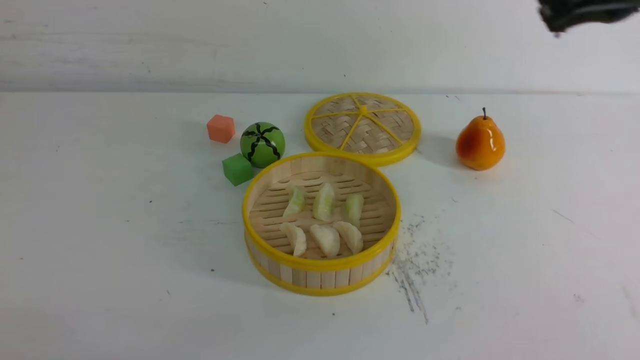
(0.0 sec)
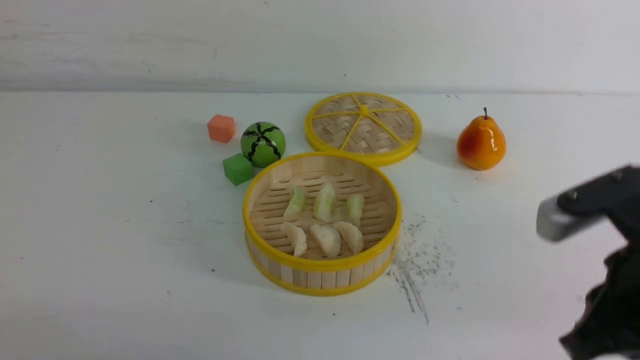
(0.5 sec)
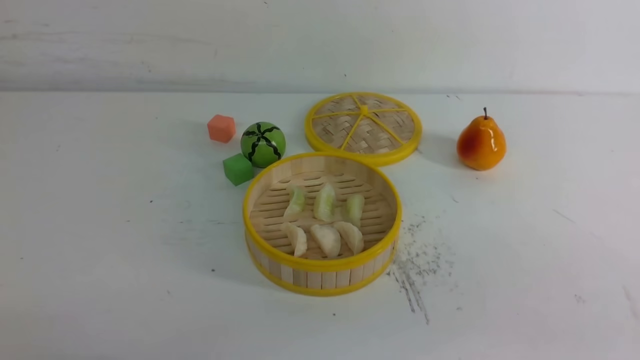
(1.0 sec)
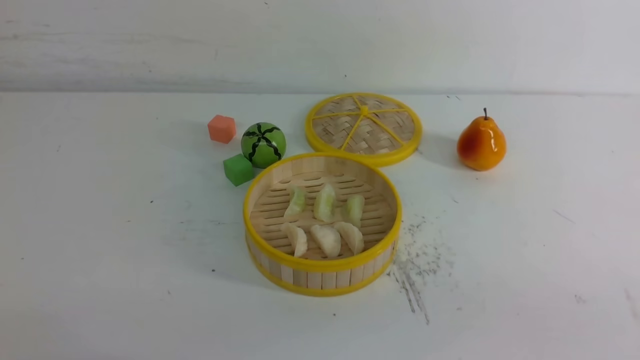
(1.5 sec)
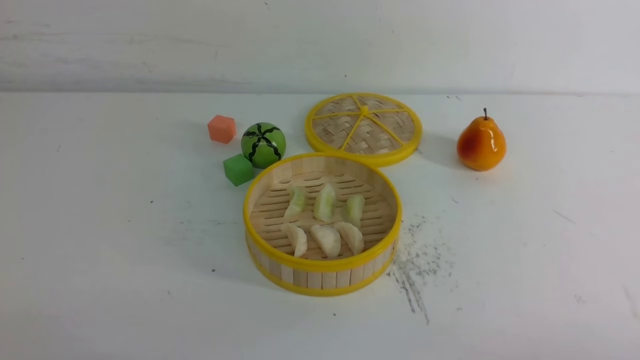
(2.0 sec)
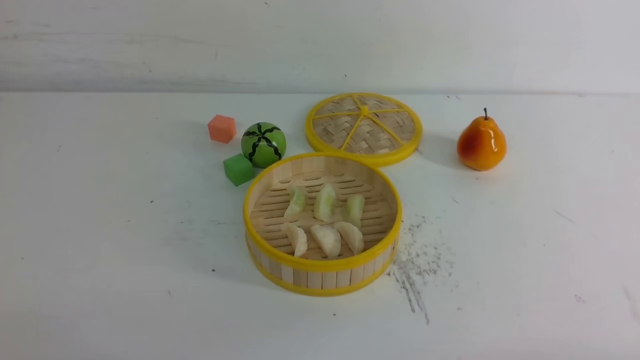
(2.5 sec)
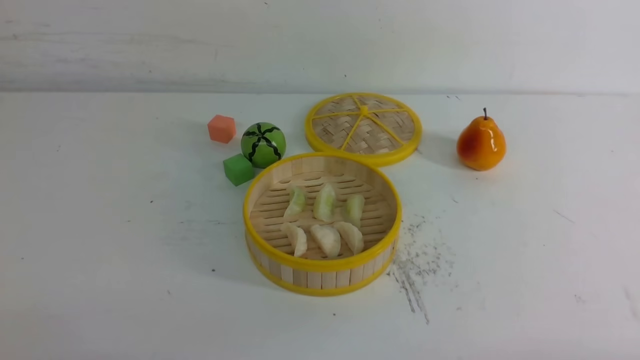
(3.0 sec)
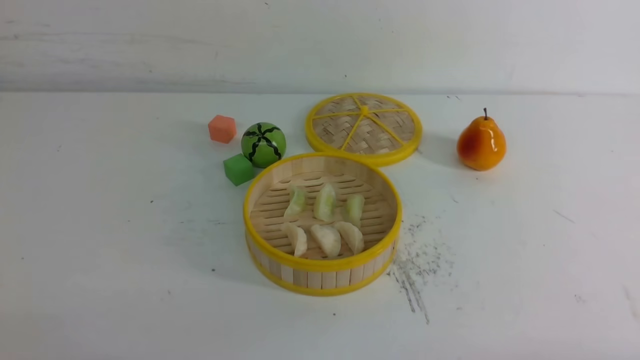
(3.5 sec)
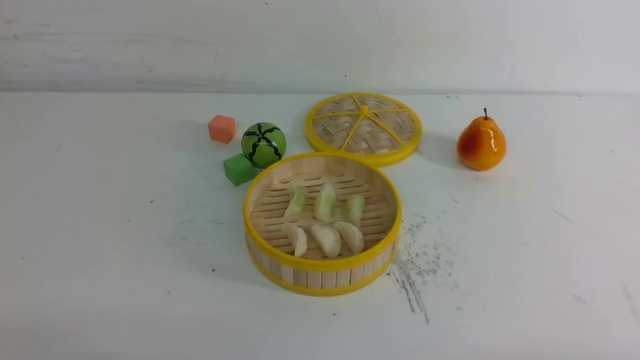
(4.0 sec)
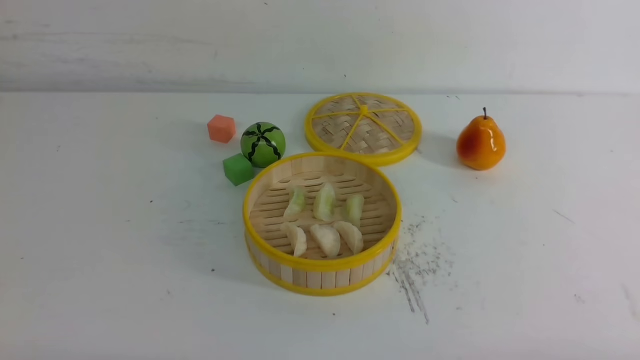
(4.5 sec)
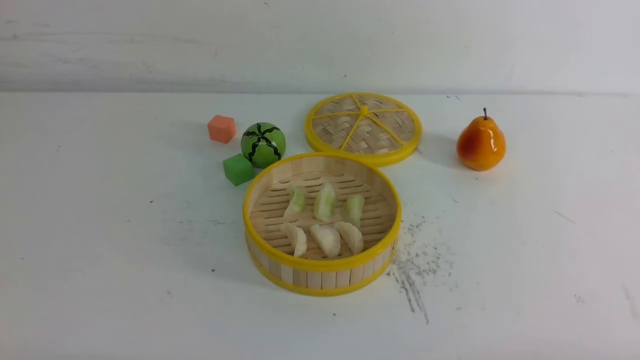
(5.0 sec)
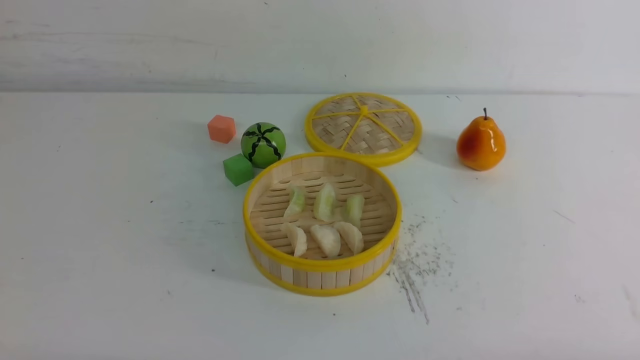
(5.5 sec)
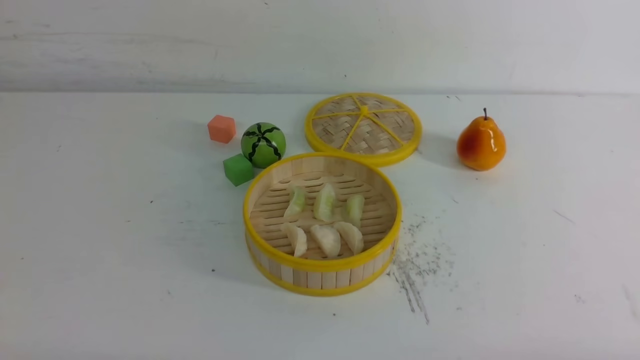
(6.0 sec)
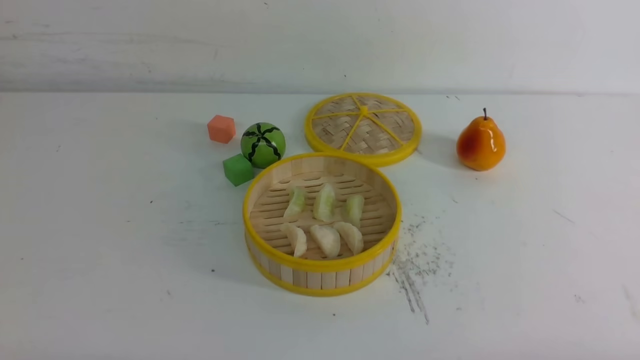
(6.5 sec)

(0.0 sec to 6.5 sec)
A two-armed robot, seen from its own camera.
Task of the whole recording: put the dumplings into the steamer on the white table.
0.0 sec - 2.0 sec: The right gripper moves downward, backward and to the right, some 35 cm.
4.5 sec - 6.5 sec: The two grippers keep their place.

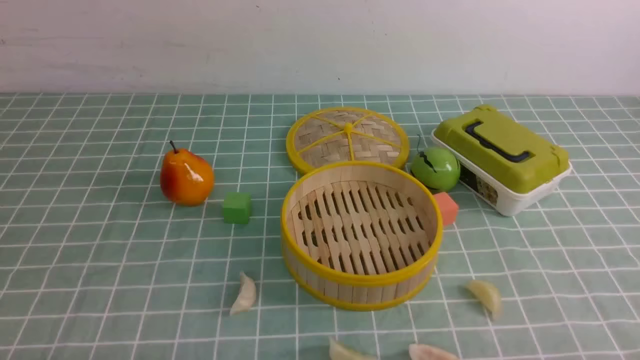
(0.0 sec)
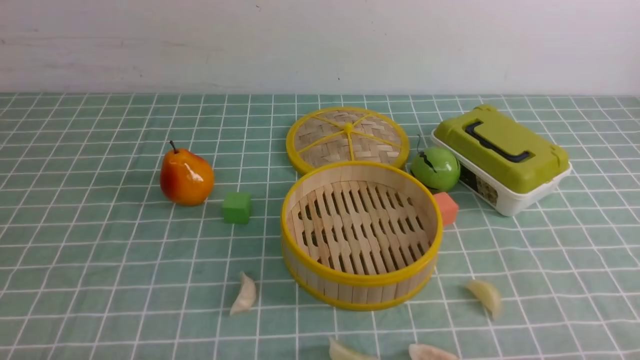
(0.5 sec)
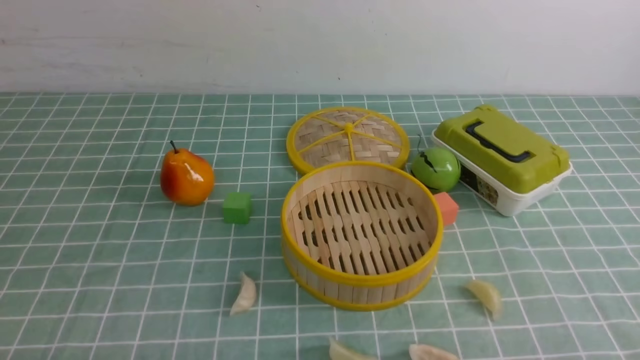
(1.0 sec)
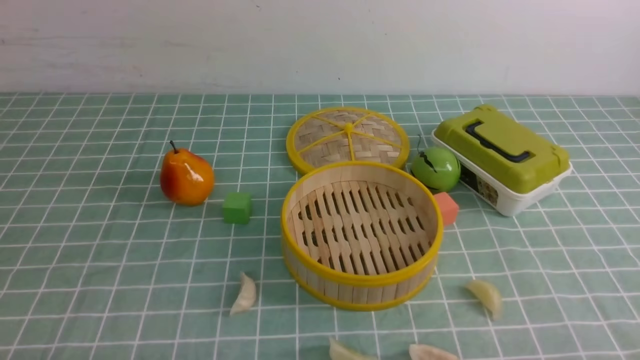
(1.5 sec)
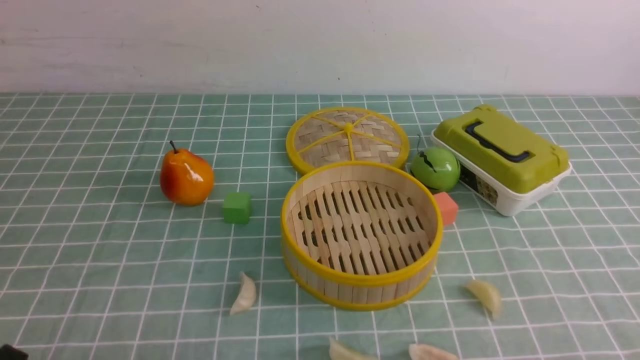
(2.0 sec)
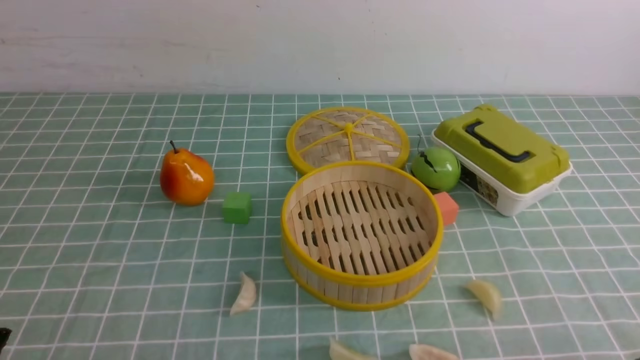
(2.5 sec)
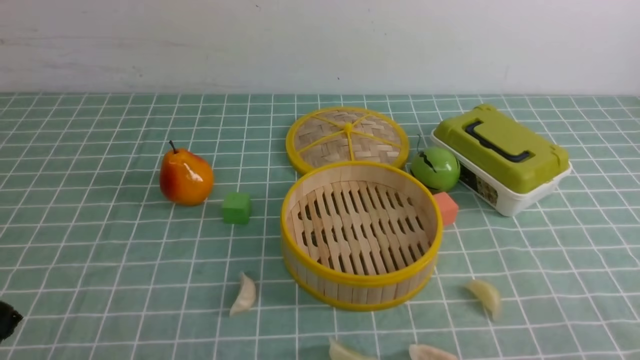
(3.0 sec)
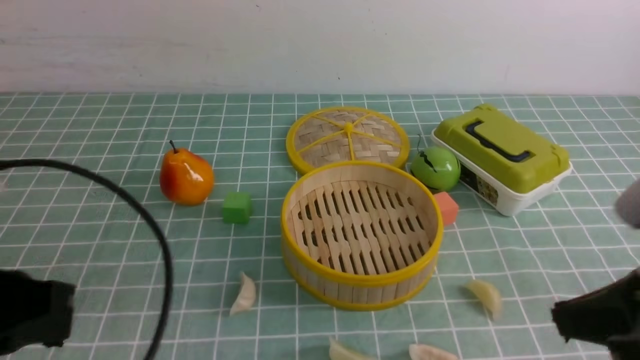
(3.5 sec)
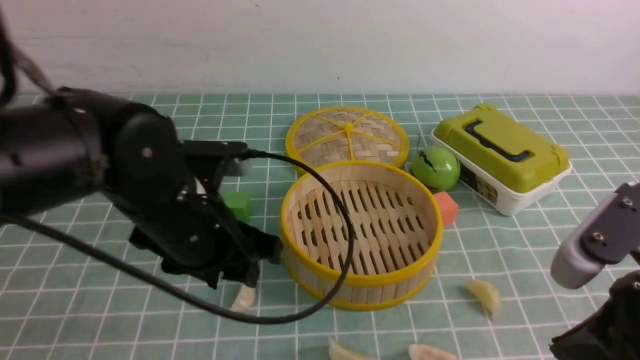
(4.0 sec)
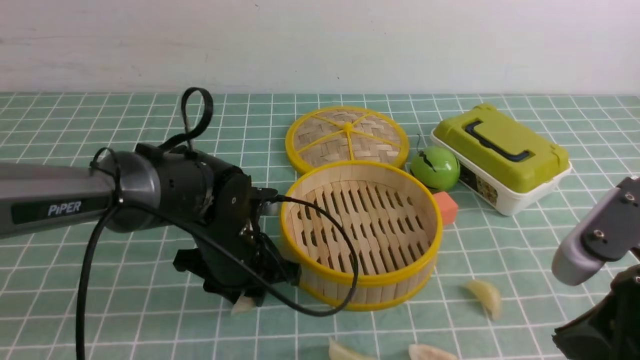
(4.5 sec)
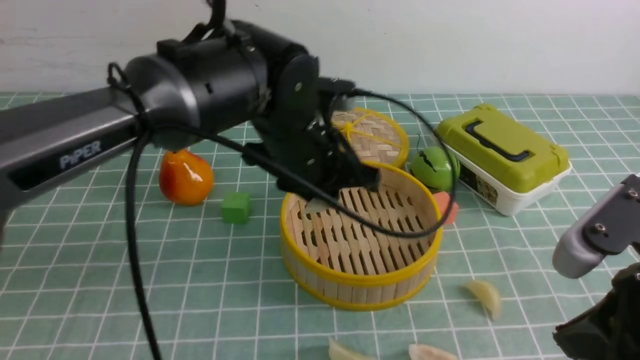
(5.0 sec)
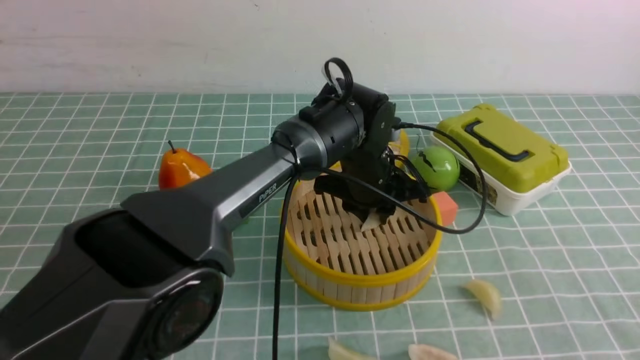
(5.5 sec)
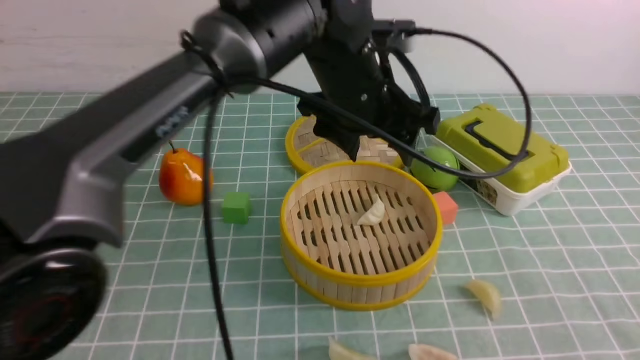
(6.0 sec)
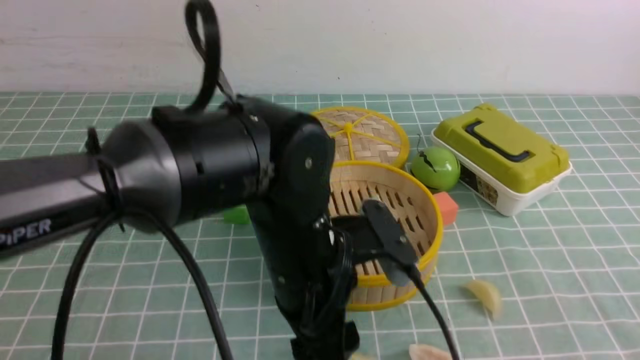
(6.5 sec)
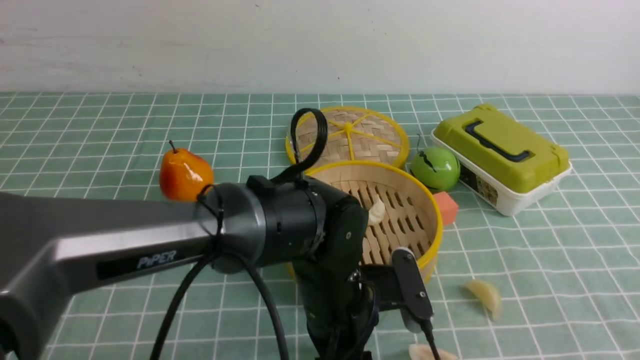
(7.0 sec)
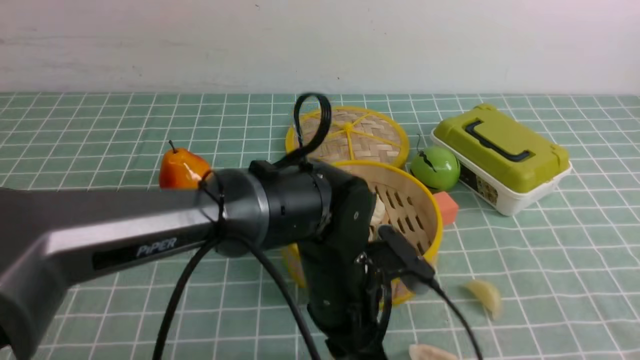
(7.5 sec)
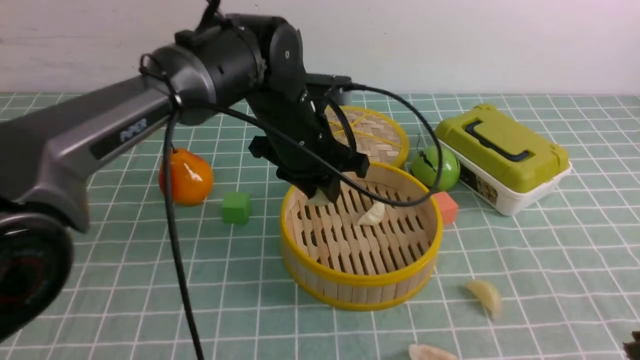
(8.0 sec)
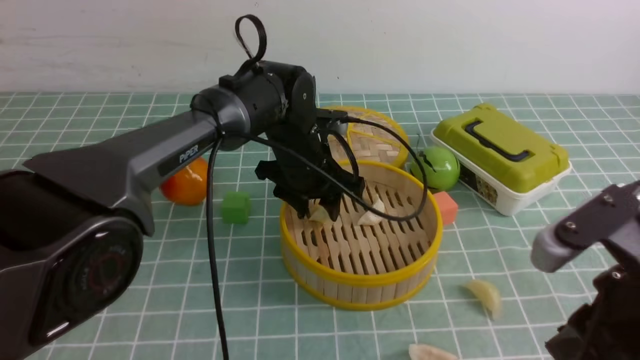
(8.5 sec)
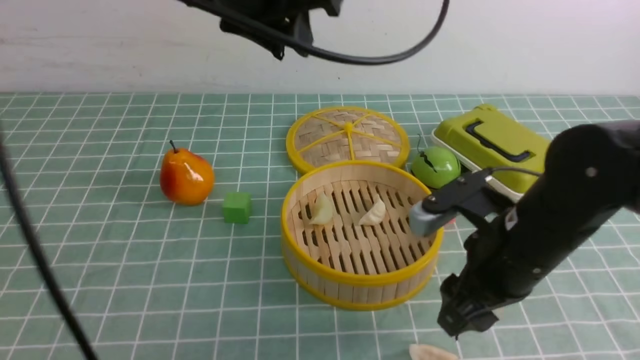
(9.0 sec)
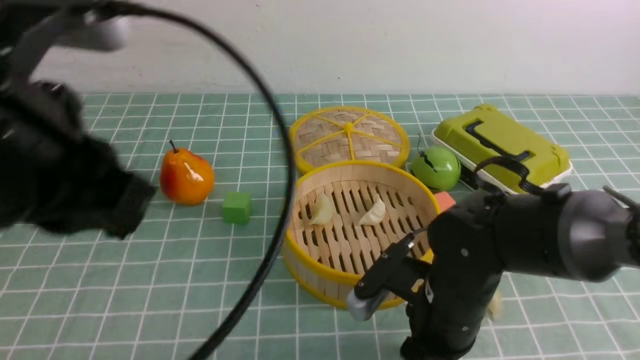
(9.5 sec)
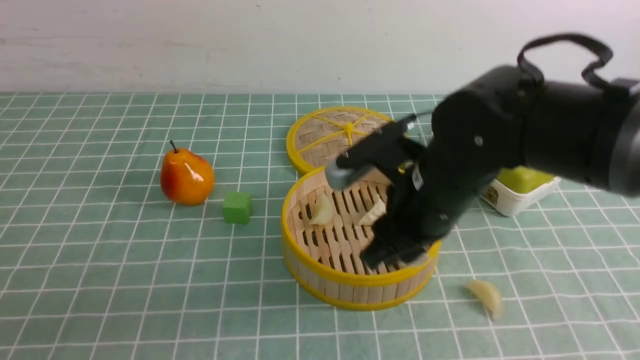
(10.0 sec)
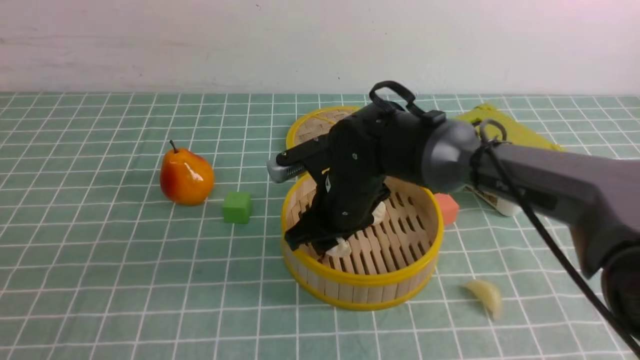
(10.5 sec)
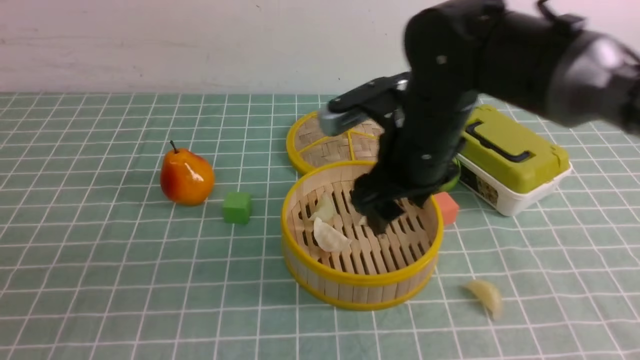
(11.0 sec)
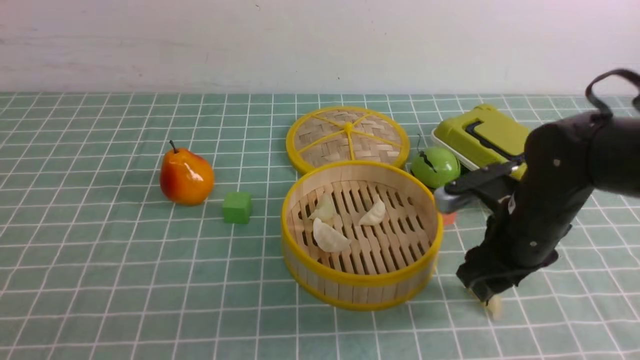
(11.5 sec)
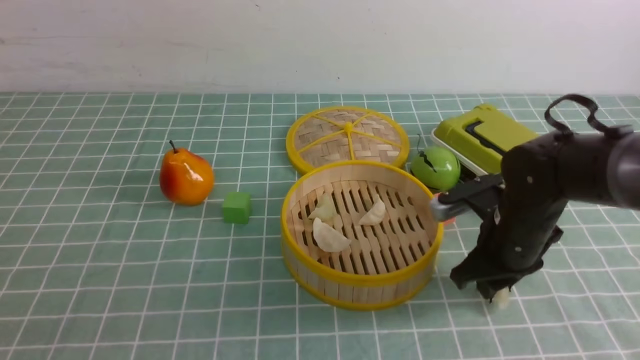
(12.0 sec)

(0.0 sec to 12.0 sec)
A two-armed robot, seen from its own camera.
Task of the whole recording: put the dumplings into the steamer on the table with the blue tablecloth.
Step, 0.0 sec - 4.5 sec: use the left arm to grab a dumpling.
Step, 5.0 sec - 5.5 sec: use the left arm to put the dumpling into the steamer.
Step, 6.0 sec - 7.0 sec: use the left arm to grab a dumpling.
Step, 7.5 sec - 8.5 sec: use the left arm to put the dumpling into the steamer.
Step, 9.0 sec - 9.5 sec: use the right arm to grab a dumpling.
Step, 10.0 sec - 10.5 sec: use the right arm to put the dumpling into the steamer.
Step, 11.0 sec - 11.5 sec: use the right arm to grab a dumpling.
2.0 sec - 4.0 sec: The right gripper is displaced upward, forward and to the left by some 15 cm, and closes up; the left gripper shifts approximately 25 cm forward and to the right, and opens its fingers.
4.0 sec - 6.0 sec: The left gripper goes about 20 cm to the right, forward and upward, and closes, then opens again. Meanwhile the right gripper is displaced backward by roughly 5 cm.
6.0 sec - 8.0 sec: The left gripper travels downward by about 5 cm, and closes up.
8.0 sec - 10.0 sec: The right gripper moves forward and to the left, approximately 25 cm, and opens its fingers; the left gripper moves backward and to the left, approximately 40 cm, and closes its fingers.
10.0 sec - 12.0 sec: The right gripper heads to the right and downward, covering approximately 10 cm, and opens, then closes once more.

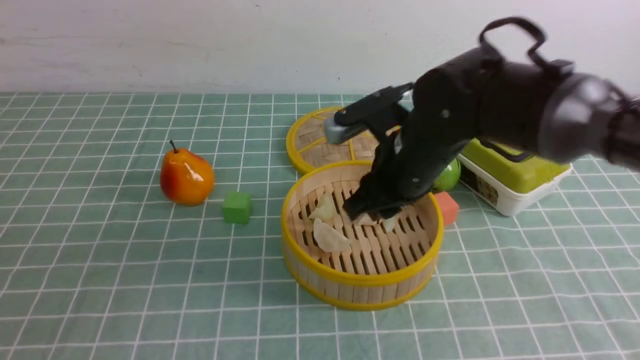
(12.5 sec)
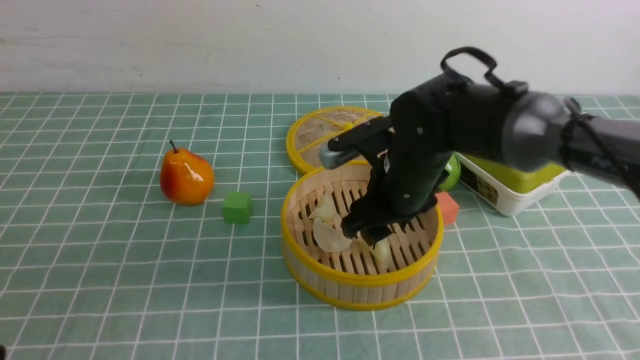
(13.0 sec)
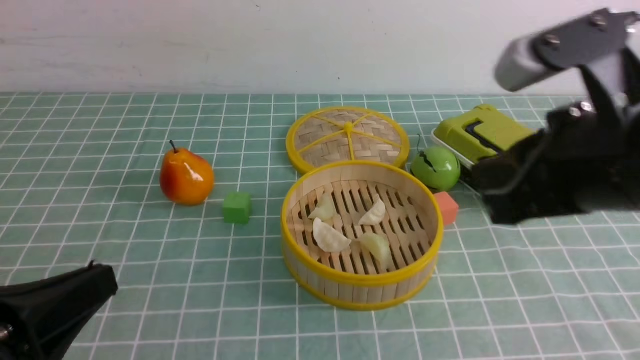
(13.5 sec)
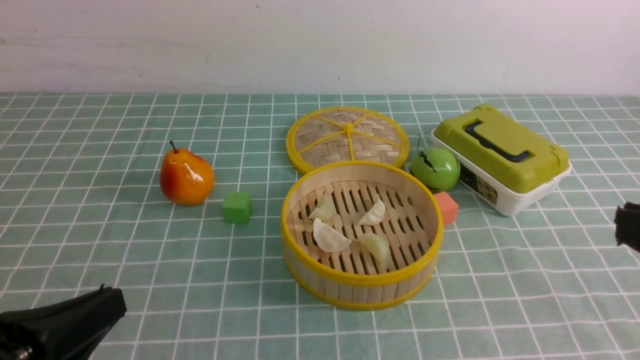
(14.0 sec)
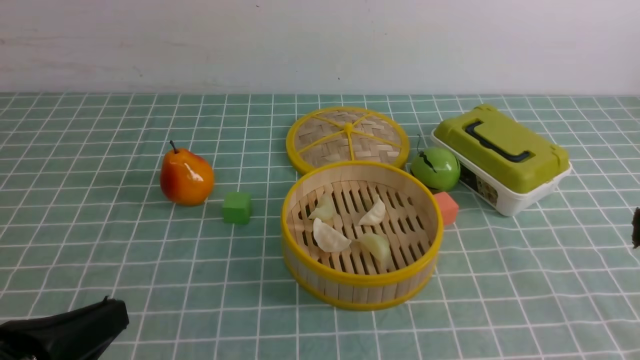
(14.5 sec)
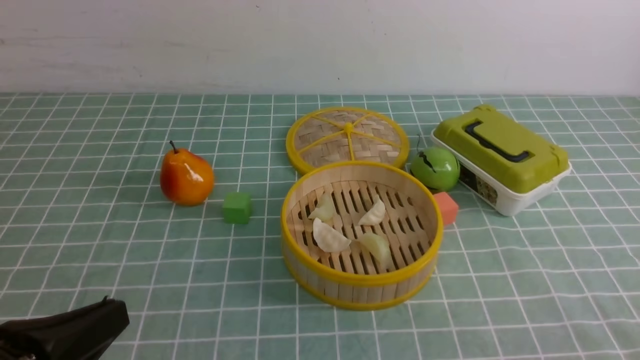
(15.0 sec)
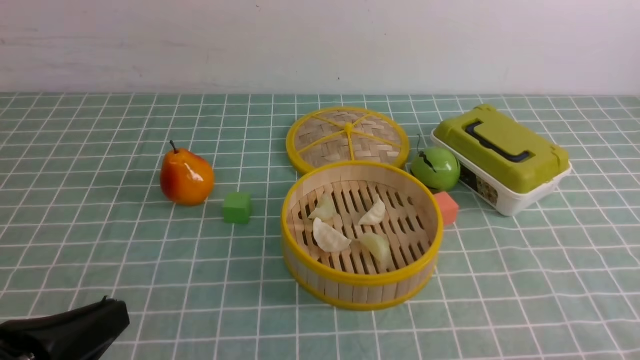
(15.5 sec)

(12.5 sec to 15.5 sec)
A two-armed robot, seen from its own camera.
Task of the whole recording: put the dumplings into the steamer on the table with the blue tablecloth.
12.5 sec - 14.0 sec: The left gripper is displaced downward and forward by about 10 cm. Meanwhile the right gripper goes about 35 cm backward, to the right and upward, and closes.
